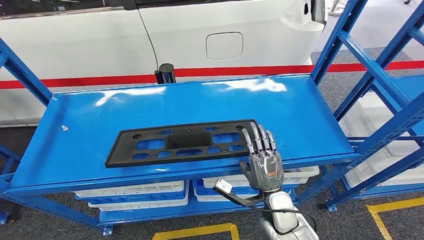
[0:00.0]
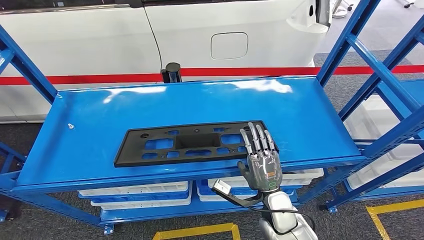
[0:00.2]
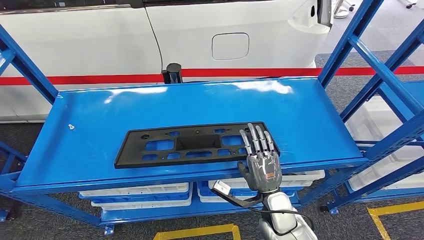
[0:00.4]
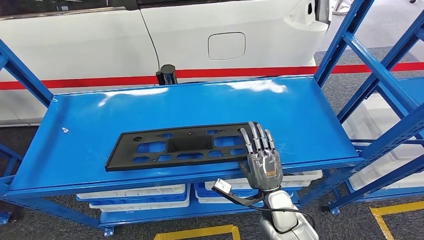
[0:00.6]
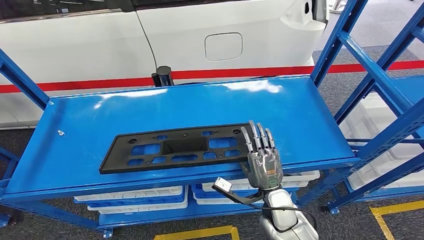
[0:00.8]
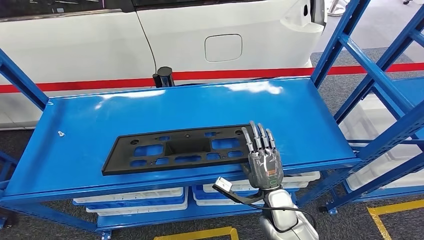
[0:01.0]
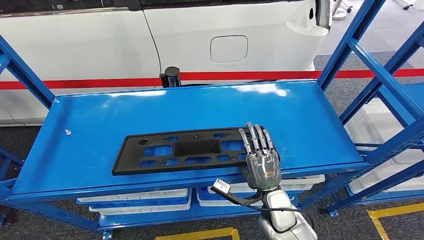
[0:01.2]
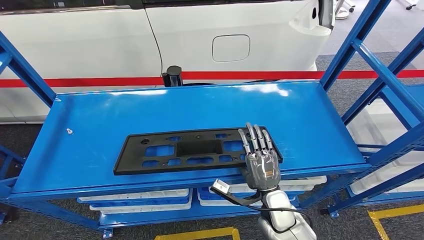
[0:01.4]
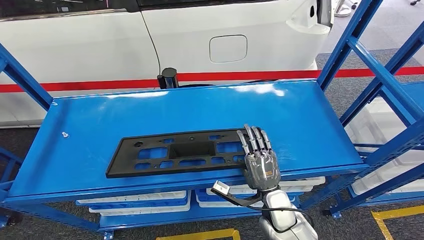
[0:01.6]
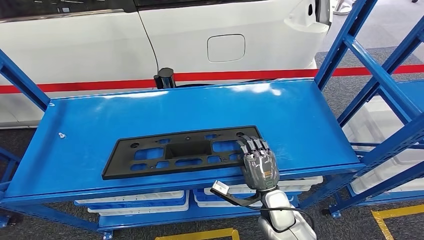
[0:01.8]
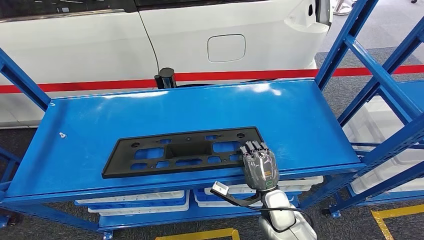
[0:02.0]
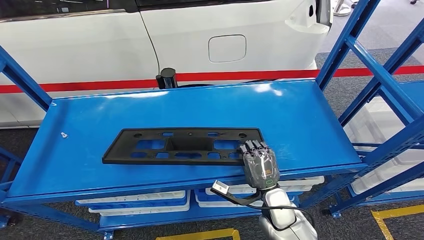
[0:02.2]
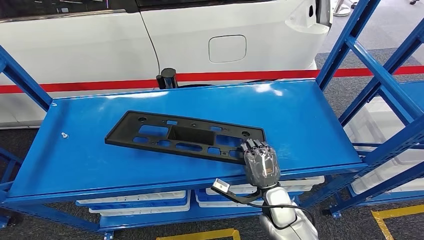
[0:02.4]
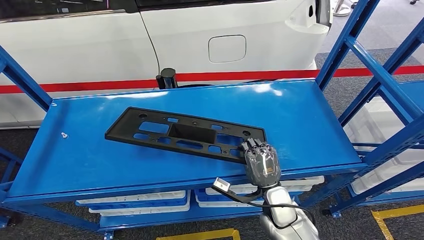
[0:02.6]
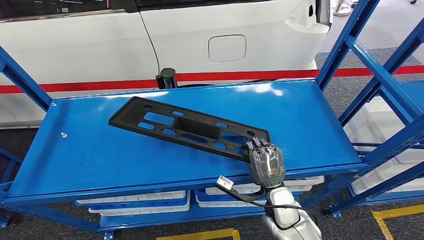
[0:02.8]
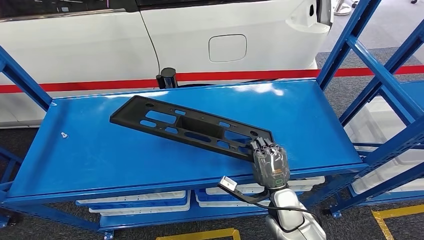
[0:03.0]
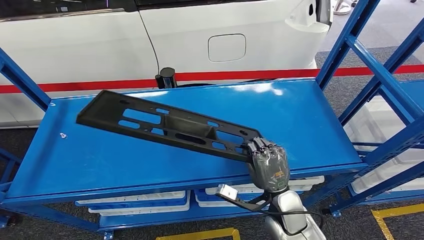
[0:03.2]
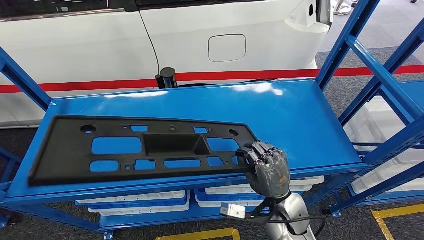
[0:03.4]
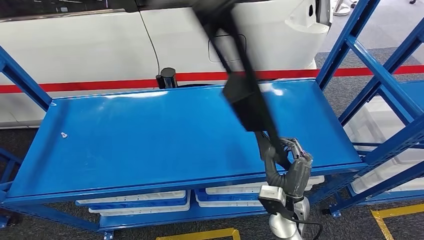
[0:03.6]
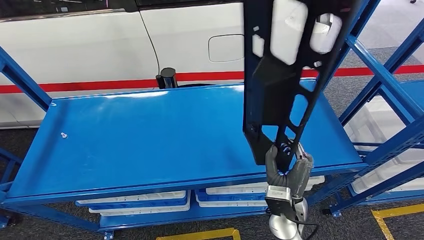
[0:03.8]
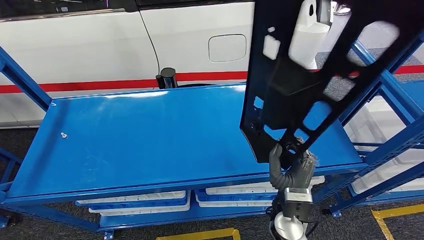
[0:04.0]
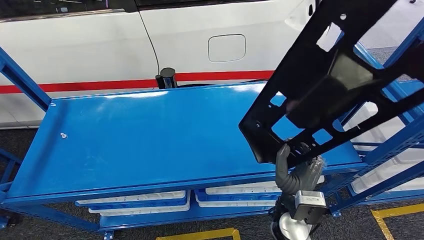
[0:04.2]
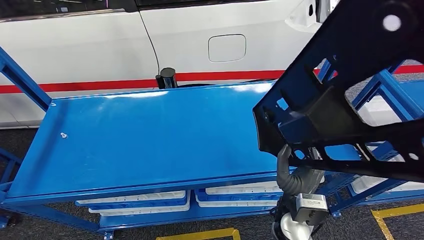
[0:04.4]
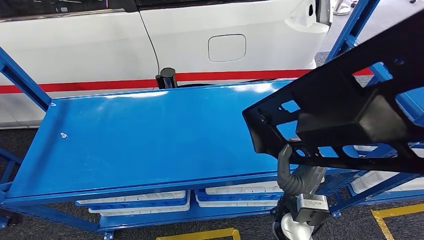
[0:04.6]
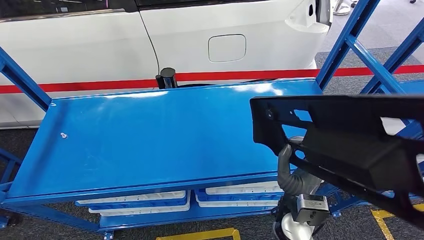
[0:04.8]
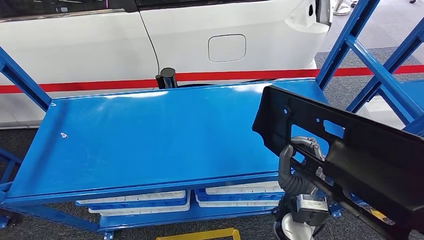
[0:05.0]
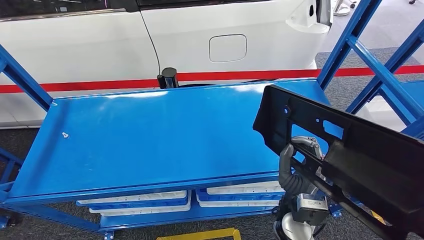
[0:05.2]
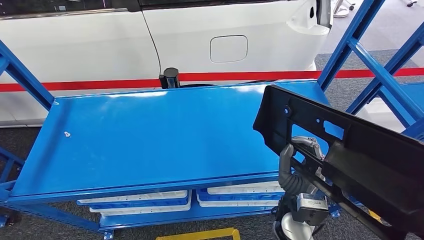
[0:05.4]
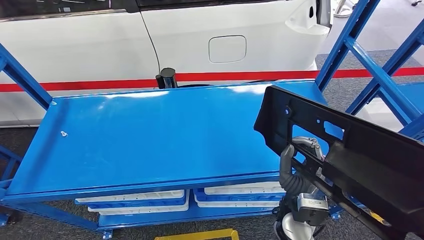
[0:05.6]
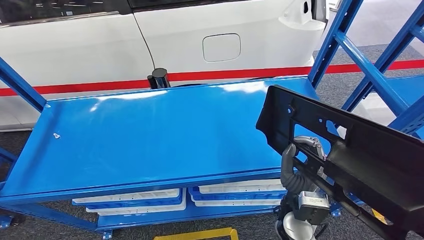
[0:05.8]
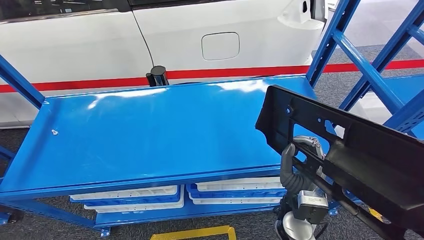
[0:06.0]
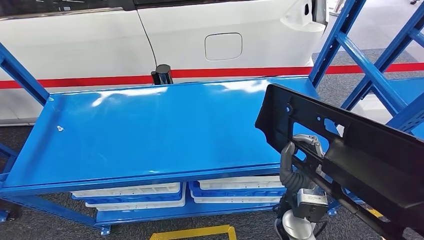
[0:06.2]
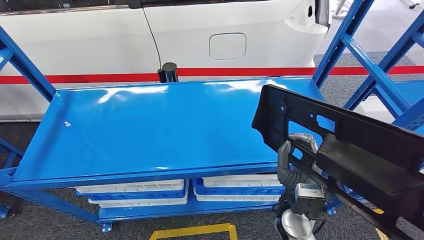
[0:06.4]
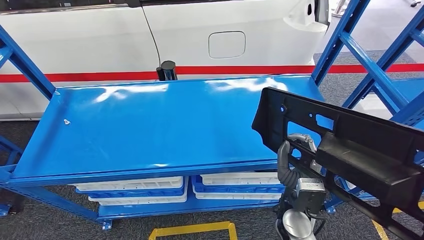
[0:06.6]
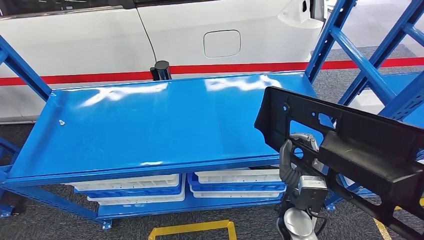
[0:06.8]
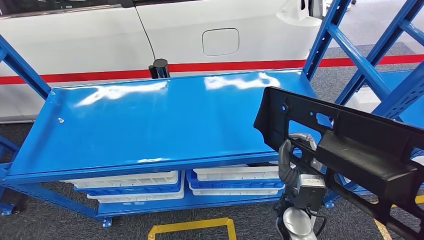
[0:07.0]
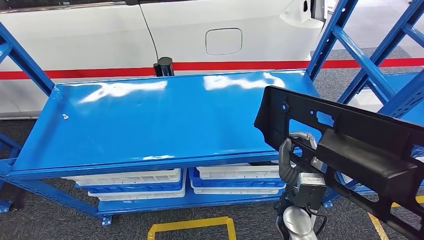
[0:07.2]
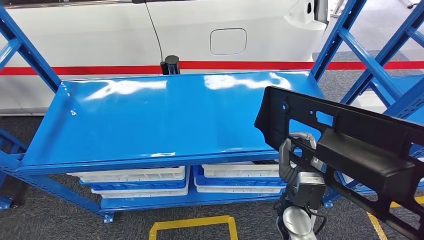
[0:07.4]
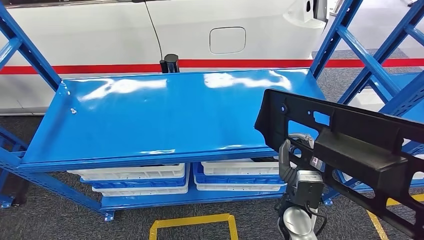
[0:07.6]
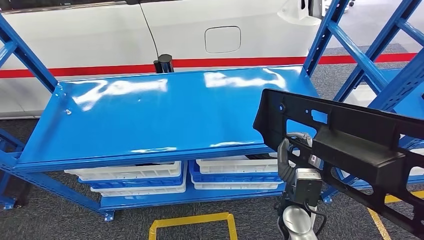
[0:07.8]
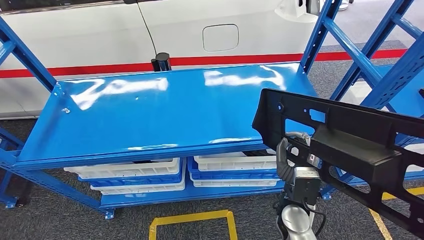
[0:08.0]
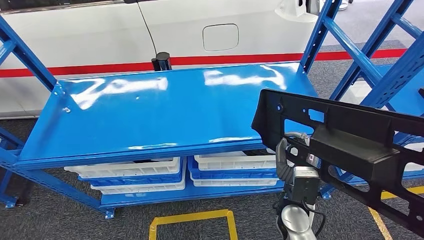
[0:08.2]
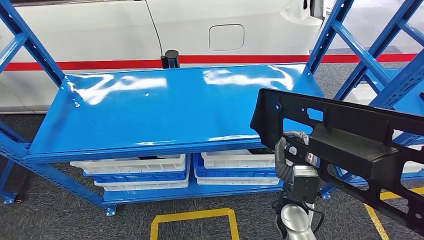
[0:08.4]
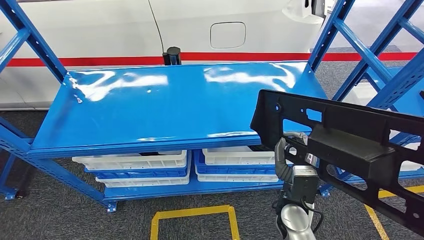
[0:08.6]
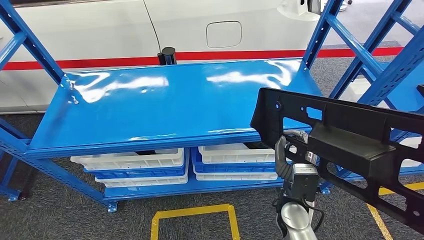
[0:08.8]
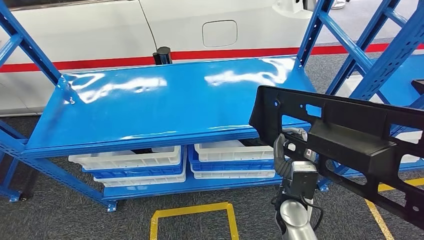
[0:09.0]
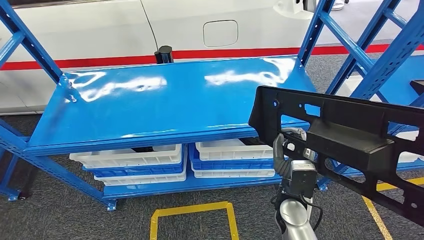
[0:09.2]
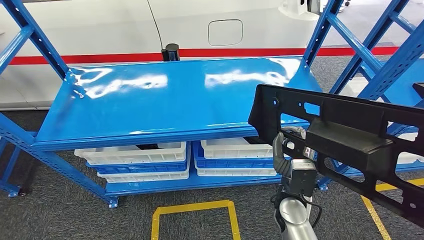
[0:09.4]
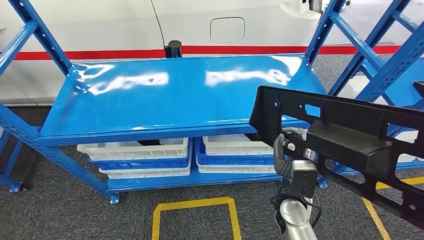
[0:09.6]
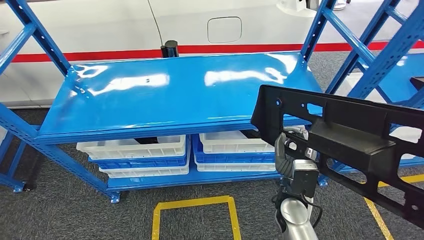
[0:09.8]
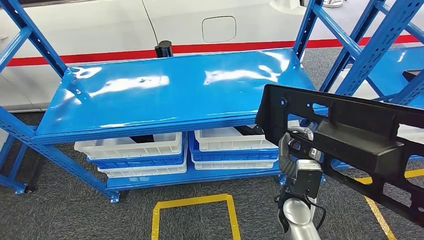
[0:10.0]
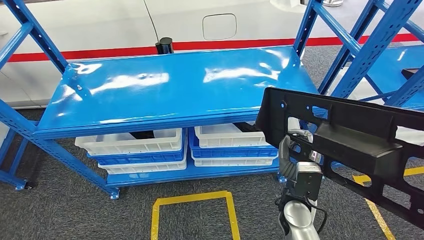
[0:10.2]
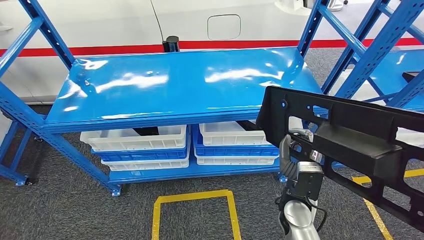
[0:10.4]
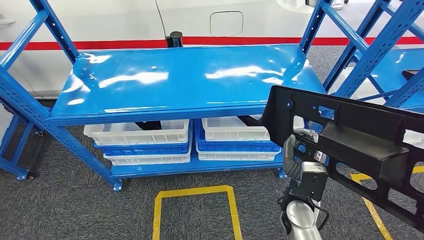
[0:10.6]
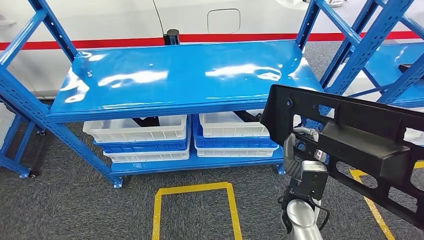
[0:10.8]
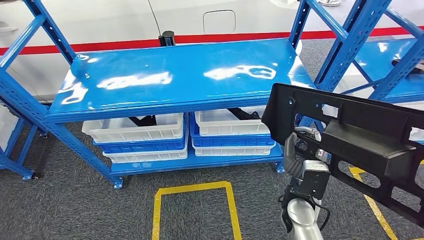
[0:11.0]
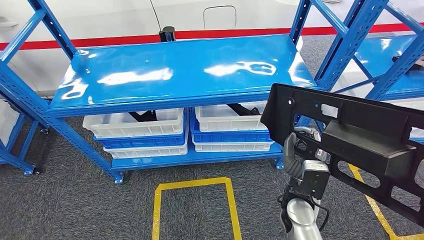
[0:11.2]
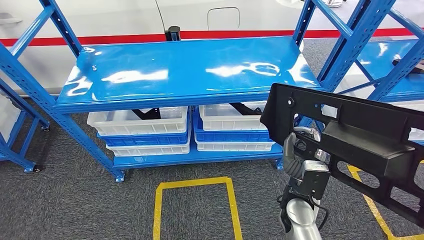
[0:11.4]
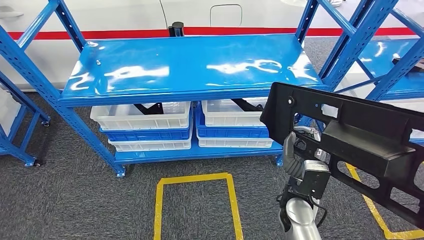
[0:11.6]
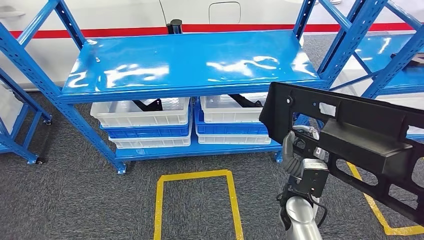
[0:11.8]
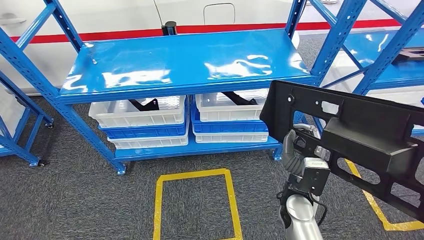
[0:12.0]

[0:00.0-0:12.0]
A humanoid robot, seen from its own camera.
Step, 0:00.0 to 0:08.6: Pick up the large material from the shelf.
0:01.6 to 0:03.0: The hands stay close to where they were, moving slightly.

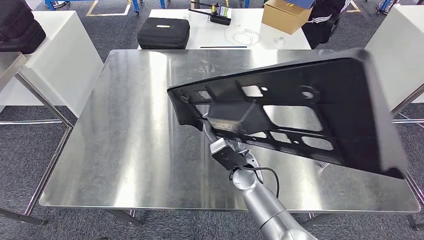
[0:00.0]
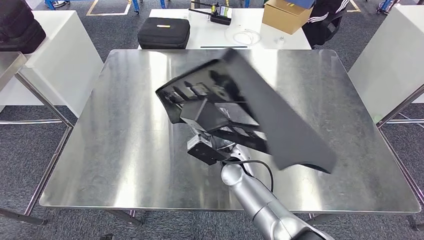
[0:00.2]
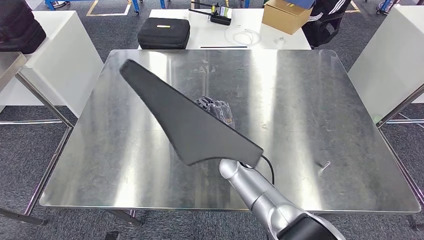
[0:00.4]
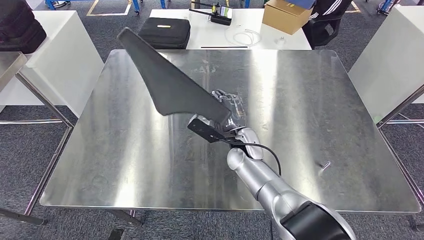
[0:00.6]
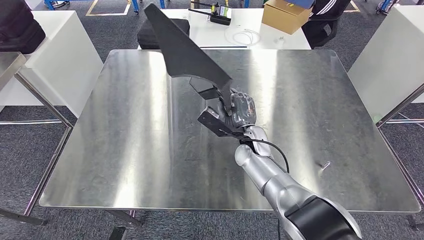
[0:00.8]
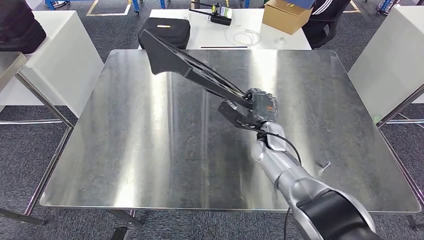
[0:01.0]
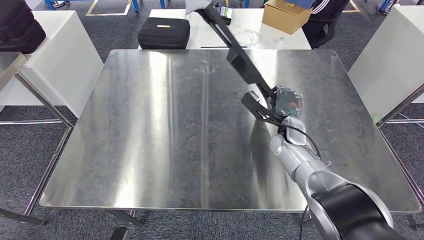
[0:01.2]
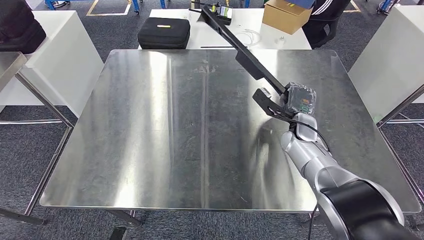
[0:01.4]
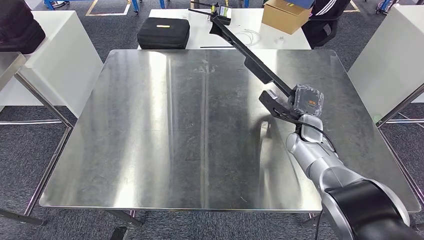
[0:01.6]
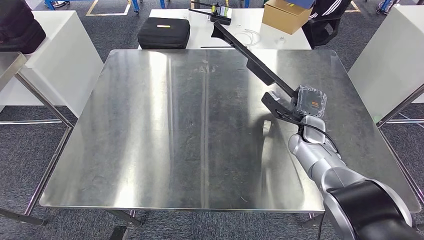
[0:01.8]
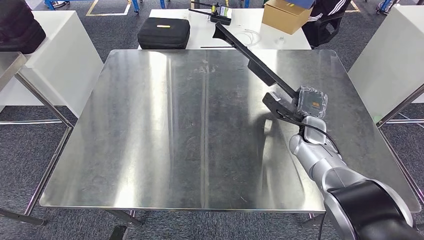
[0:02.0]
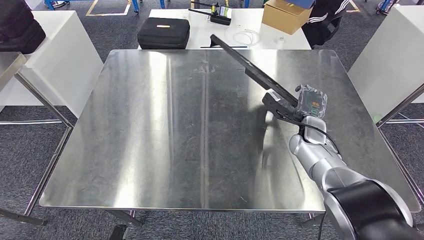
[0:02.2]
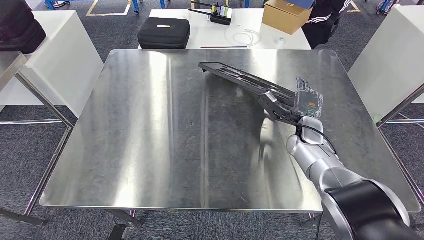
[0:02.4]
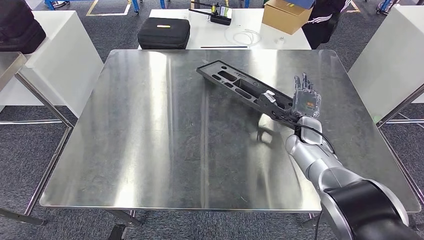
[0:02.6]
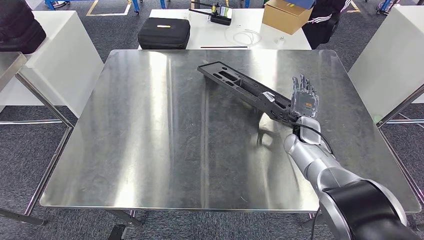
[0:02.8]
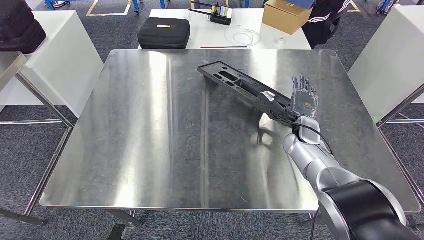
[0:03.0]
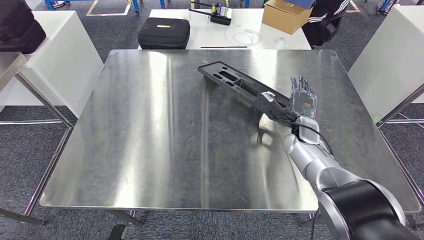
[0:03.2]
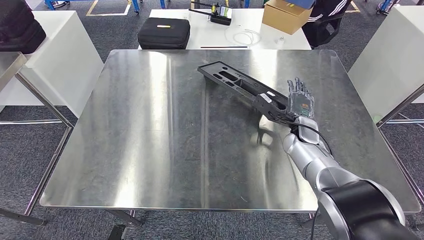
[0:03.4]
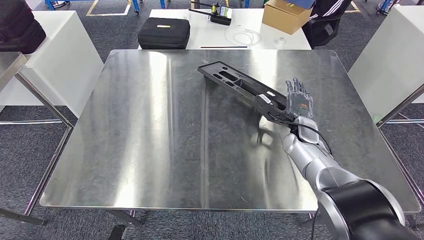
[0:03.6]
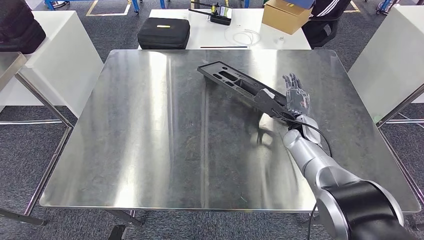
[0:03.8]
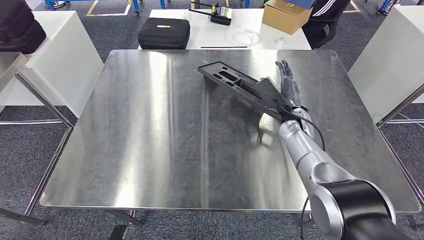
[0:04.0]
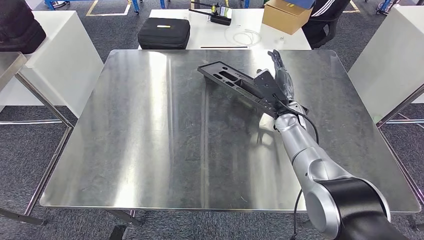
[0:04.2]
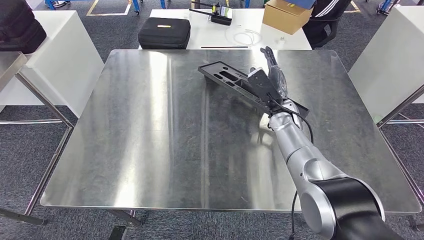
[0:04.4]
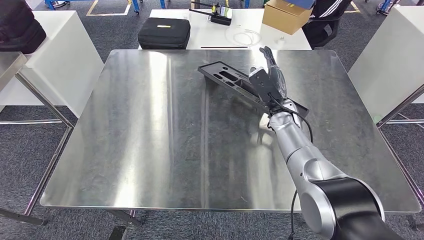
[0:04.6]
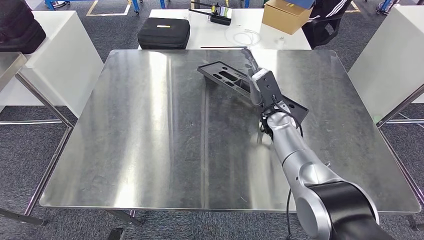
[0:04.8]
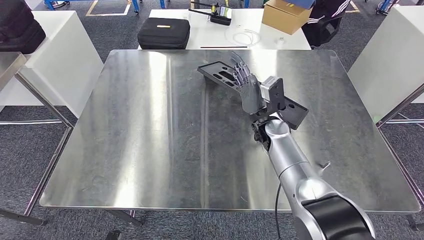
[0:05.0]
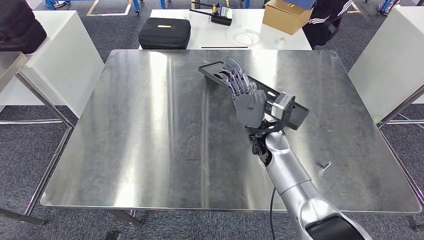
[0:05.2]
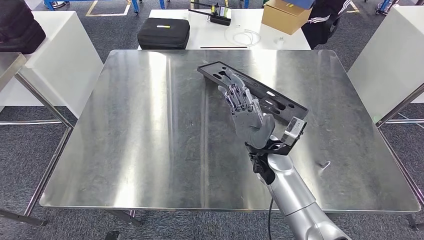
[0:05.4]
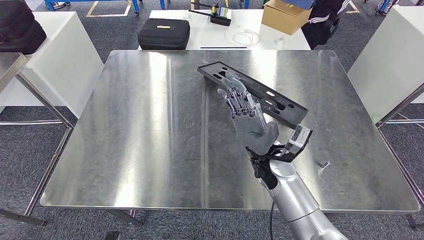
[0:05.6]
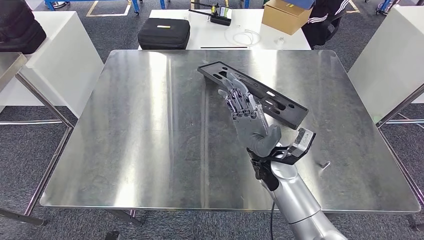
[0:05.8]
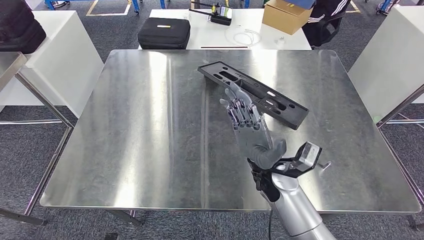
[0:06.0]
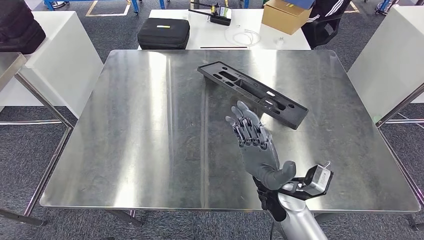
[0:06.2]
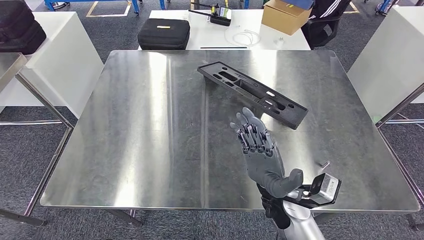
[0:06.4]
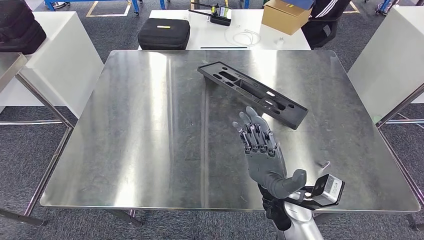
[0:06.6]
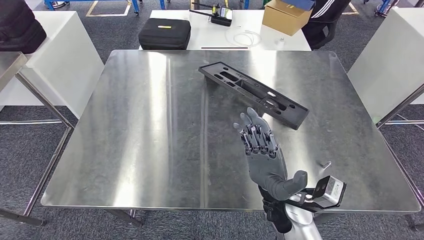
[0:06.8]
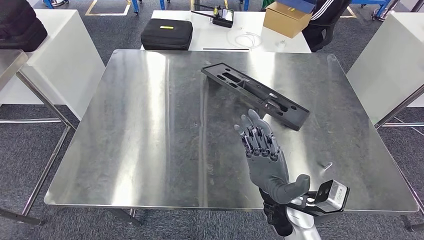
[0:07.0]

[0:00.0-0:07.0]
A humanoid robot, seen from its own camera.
0:01.4 to 0:02.8: The hands stay close to where they were, moving slightly.
0:02.8 to 0:04.2: The right hand shifts by some 5 cm.
0:04.2 to 0:05.6: The right hand moves backward and to the left, some 15 cm.
0:05.6 to 0:07.0: The right hand travels backward by some 10 cm.
